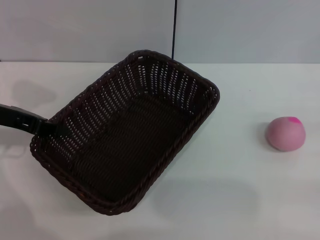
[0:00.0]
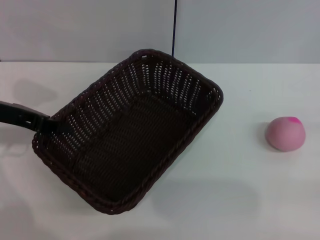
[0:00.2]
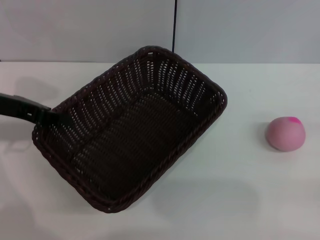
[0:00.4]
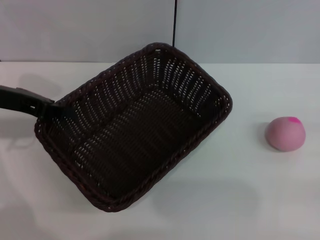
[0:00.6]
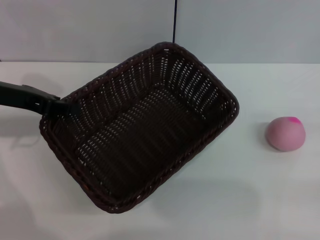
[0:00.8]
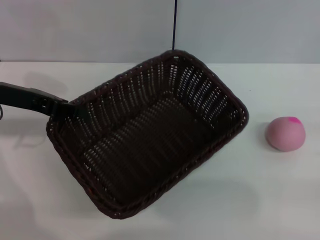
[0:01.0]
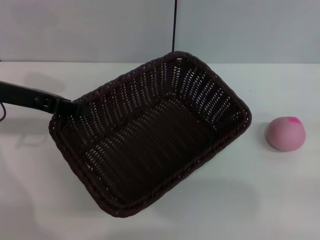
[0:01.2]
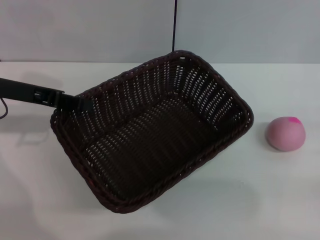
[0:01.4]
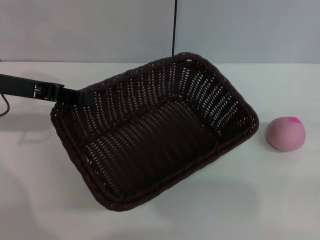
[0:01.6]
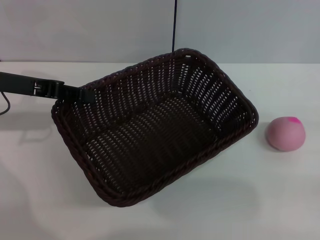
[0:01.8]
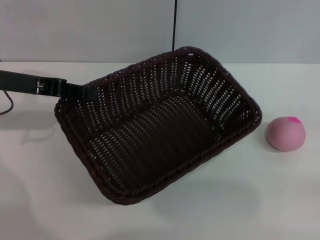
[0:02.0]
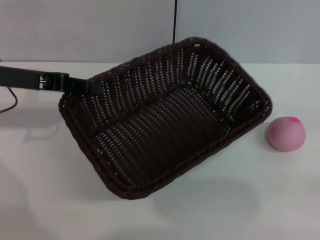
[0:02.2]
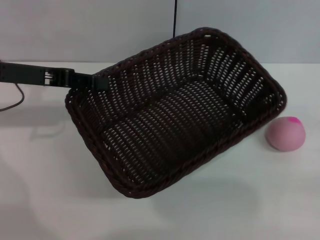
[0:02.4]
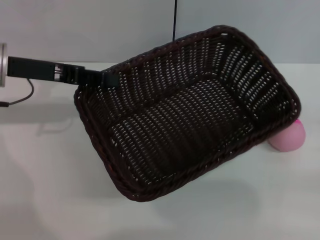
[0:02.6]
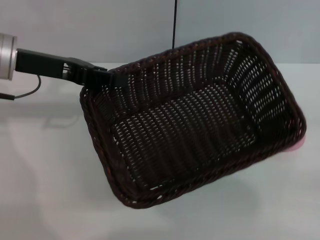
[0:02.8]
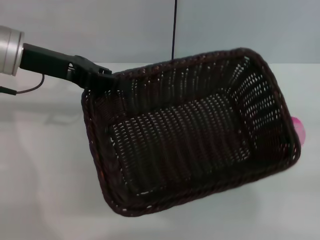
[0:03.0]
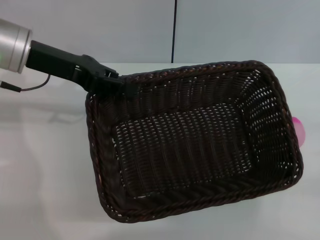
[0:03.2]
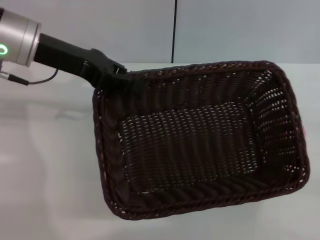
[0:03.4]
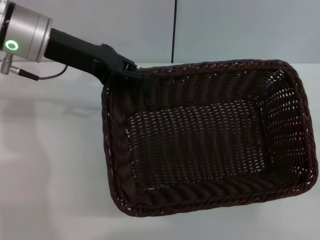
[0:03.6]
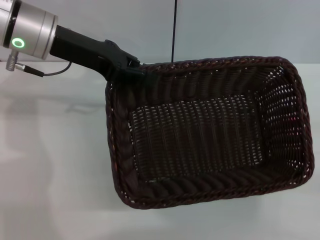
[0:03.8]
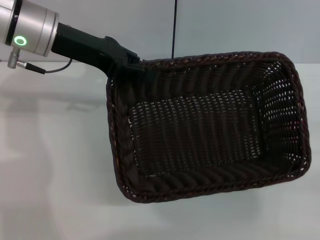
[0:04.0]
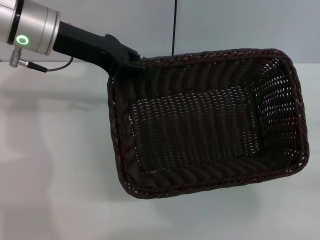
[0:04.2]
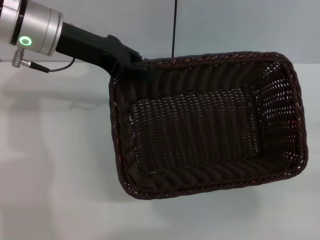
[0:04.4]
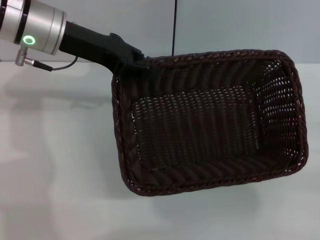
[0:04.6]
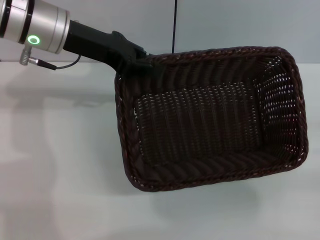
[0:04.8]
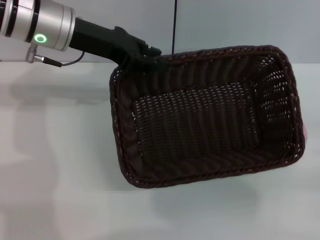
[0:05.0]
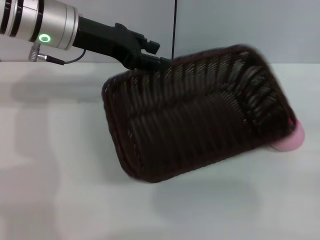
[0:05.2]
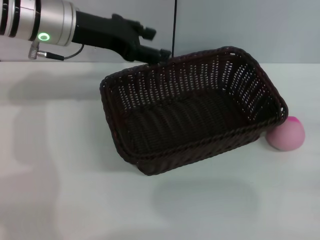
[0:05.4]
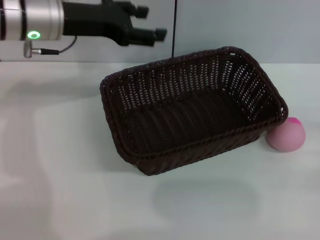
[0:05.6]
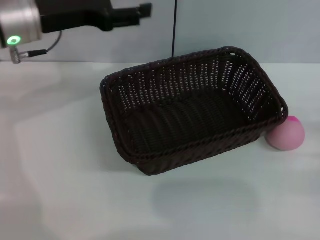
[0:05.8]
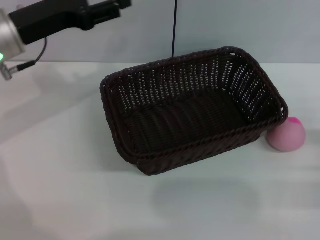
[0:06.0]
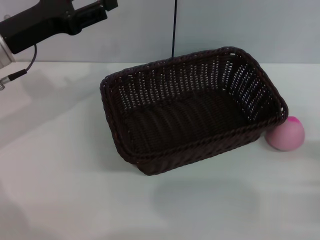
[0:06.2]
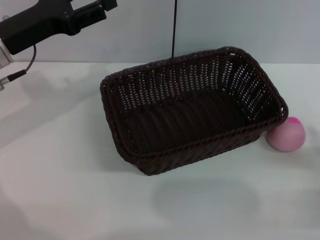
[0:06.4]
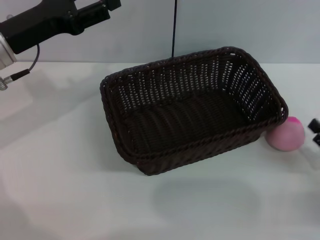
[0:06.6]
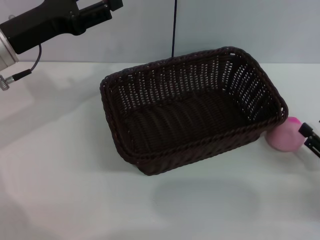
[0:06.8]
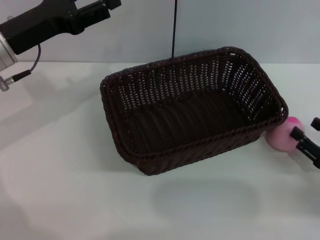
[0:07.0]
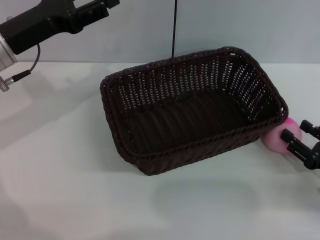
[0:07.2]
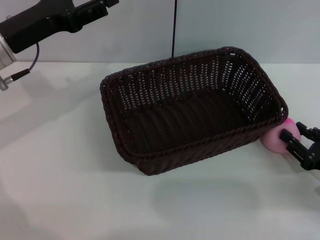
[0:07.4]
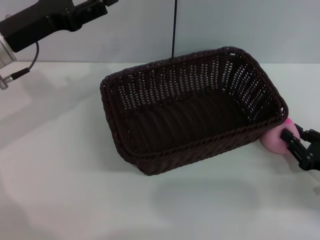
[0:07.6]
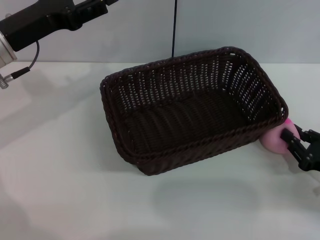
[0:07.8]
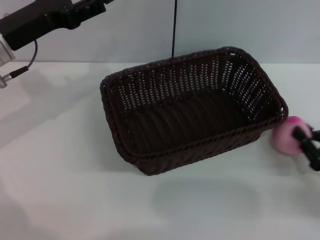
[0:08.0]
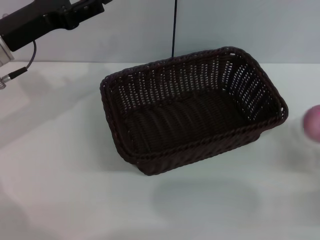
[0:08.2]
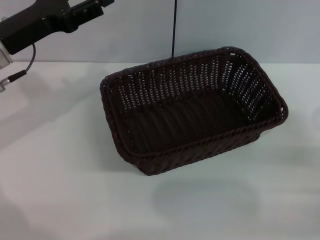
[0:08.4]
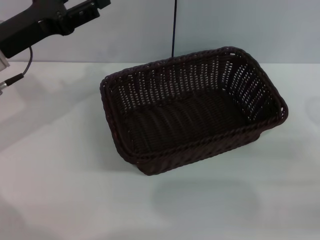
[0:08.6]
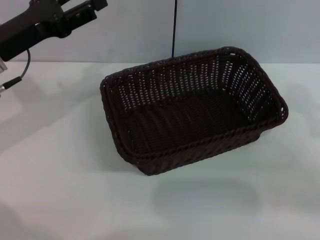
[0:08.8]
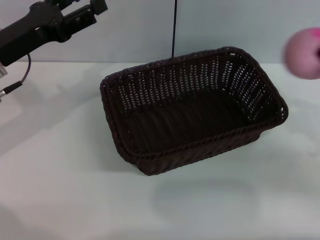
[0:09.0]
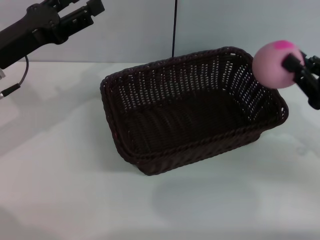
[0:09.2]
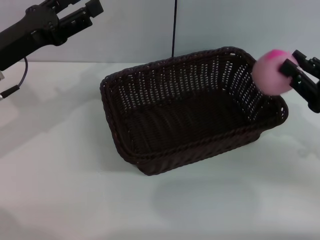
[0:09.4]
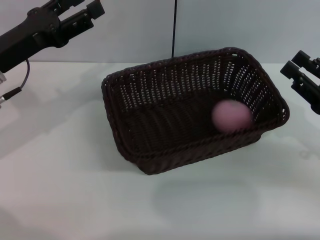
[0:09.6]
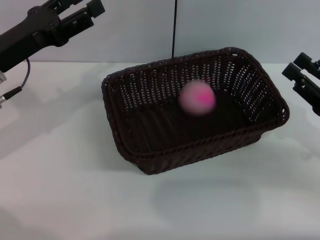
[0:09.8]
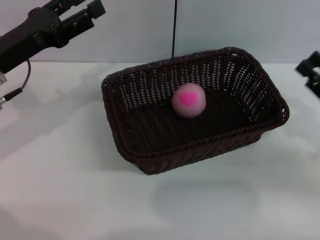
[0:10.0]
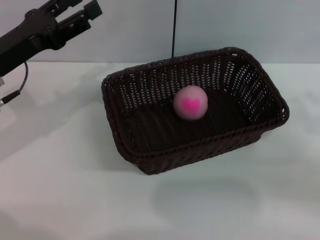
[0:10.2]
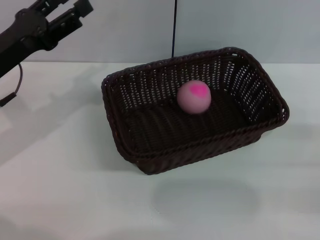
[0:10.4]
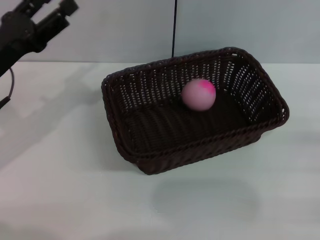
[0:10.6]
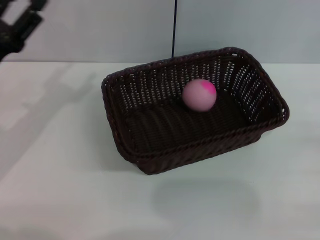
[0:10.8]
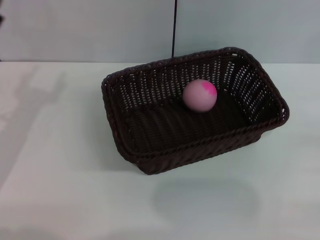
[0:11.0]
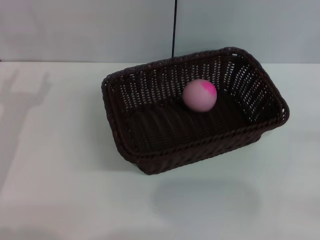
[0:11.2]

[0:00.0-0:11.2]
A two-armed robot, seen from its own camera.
Step, 0:00.8 to 0:05.2: Place the dark basket in the center of view with the right gripper.
Step, 0:05.4 to 0:08.2: Pick up the peach with the left gripper.
Step, 0:08.4 to 0:09.6: Place the peach into the basket with the left gripper.
0:00.0 to 0:01.6: There are only small adjustments of the grippers.
0:01.6 to 0:03.2: The left gripper heads to the right, covering some 5 cm.
0:04.8 to 0:06.4: The left gripper travels to the left and backward by some 10 cm, and opens its fingers; the right gripper ends up roughly 5 cm from where it was.
0:06.4 to 0:08.0: The right gripper closes.
0:08.0 to 0:09.6: The right gripper heads upward and forward, covering approximately 10 cm.
0:09.6 to 0:11.2: The right gripper travels to the right and backward by approximately 10 cm. The left gripper shifts roughly 10 cm backward and downward.
